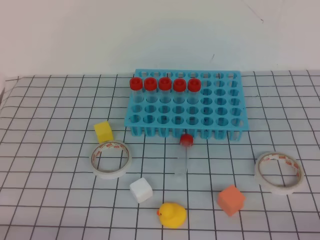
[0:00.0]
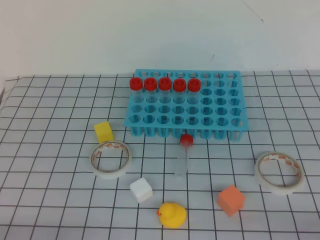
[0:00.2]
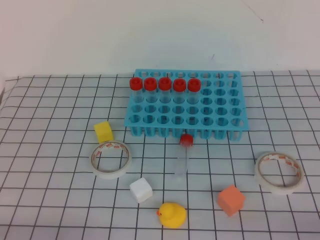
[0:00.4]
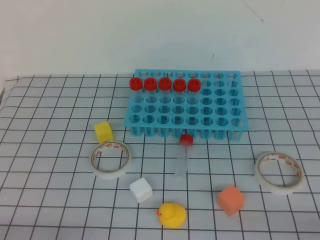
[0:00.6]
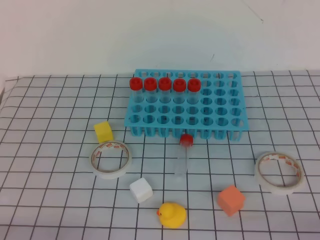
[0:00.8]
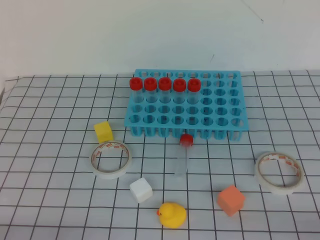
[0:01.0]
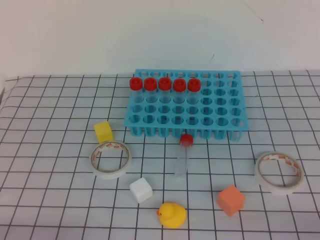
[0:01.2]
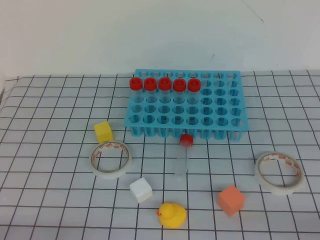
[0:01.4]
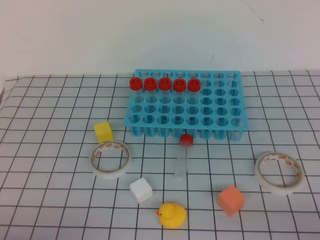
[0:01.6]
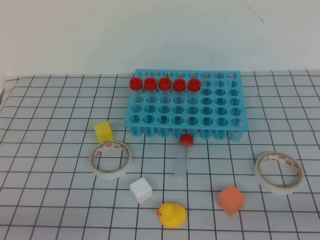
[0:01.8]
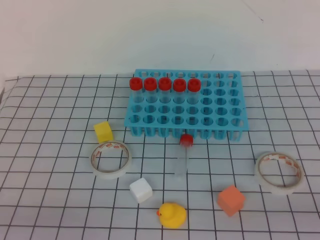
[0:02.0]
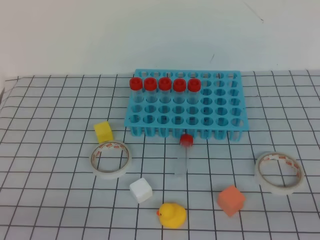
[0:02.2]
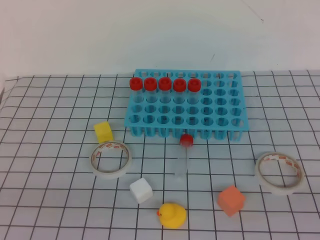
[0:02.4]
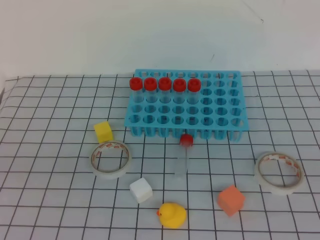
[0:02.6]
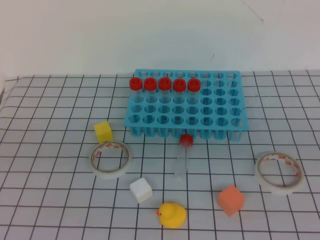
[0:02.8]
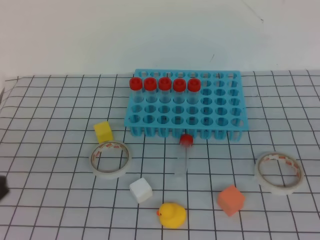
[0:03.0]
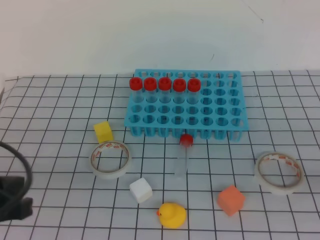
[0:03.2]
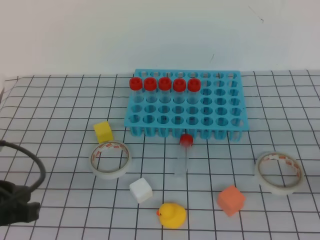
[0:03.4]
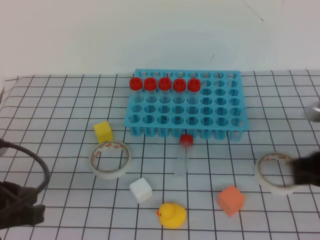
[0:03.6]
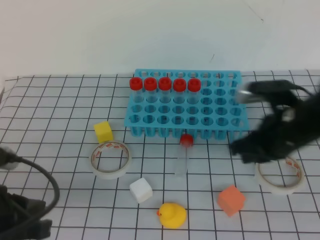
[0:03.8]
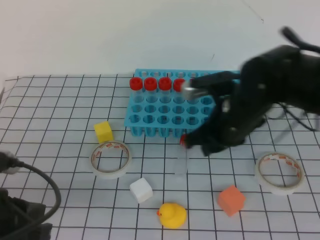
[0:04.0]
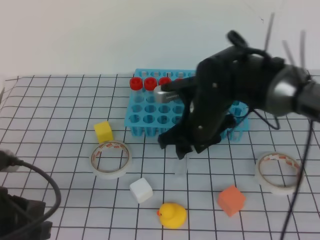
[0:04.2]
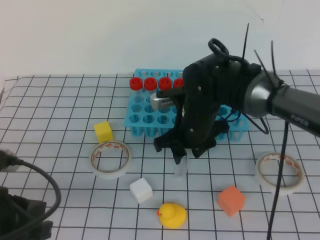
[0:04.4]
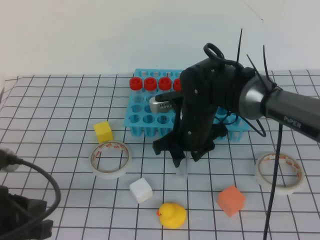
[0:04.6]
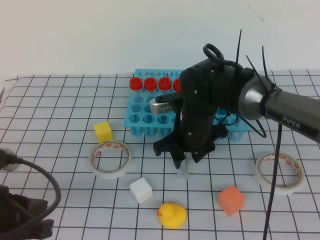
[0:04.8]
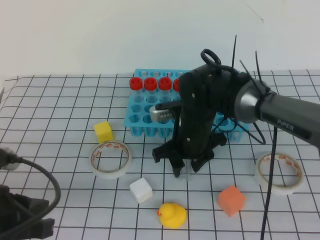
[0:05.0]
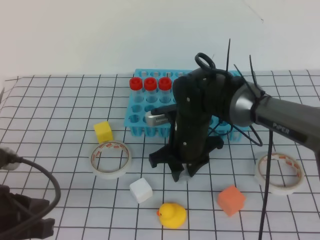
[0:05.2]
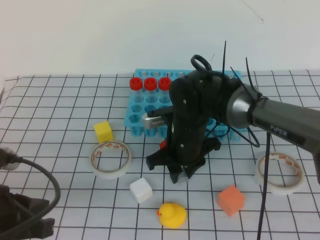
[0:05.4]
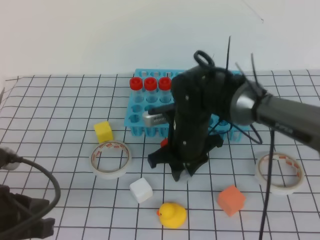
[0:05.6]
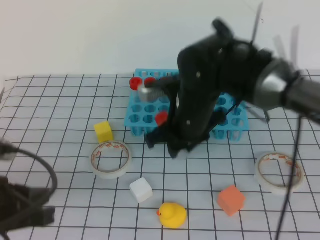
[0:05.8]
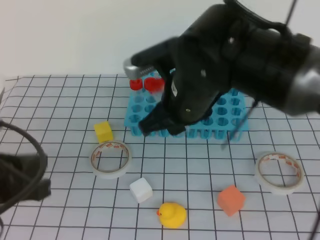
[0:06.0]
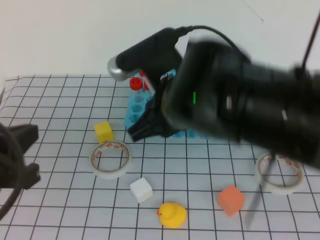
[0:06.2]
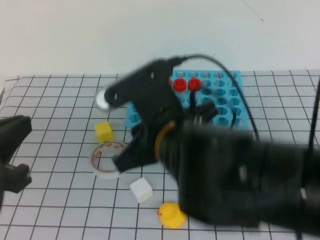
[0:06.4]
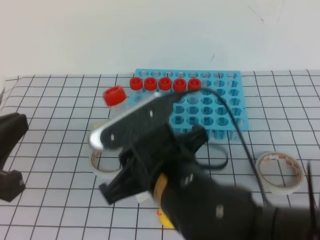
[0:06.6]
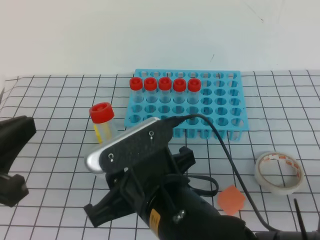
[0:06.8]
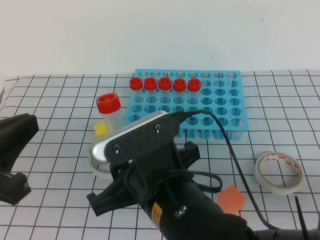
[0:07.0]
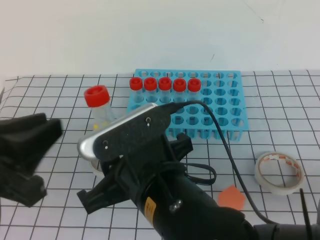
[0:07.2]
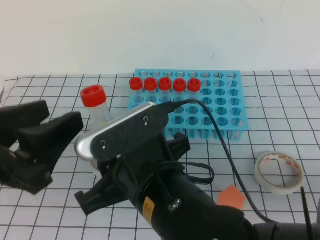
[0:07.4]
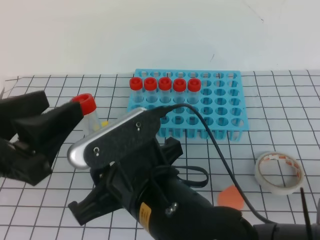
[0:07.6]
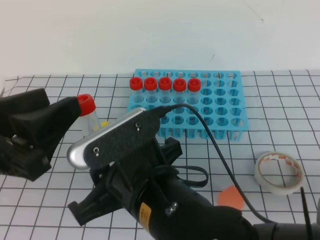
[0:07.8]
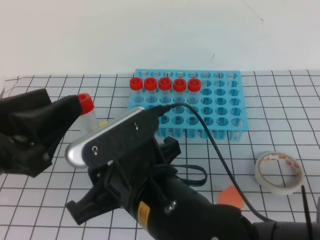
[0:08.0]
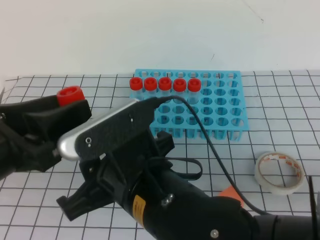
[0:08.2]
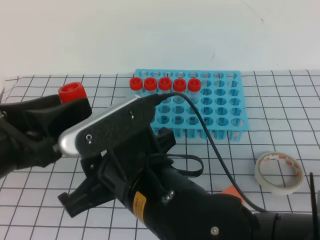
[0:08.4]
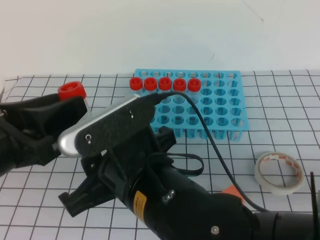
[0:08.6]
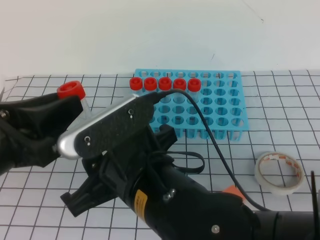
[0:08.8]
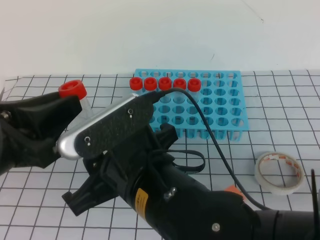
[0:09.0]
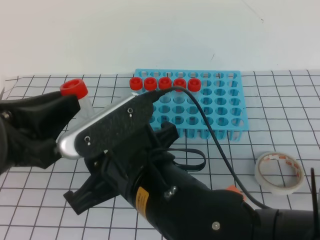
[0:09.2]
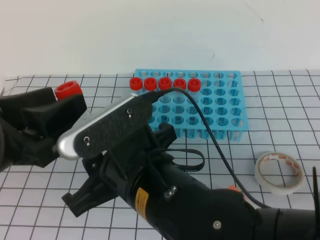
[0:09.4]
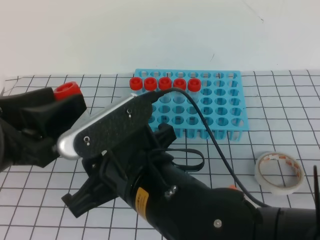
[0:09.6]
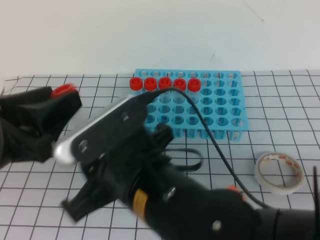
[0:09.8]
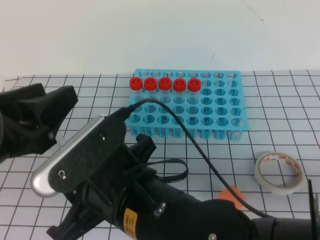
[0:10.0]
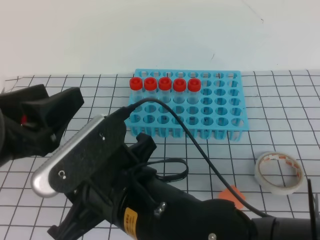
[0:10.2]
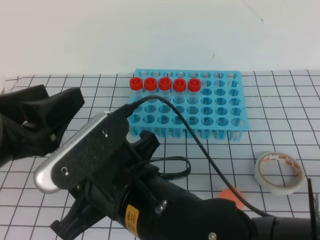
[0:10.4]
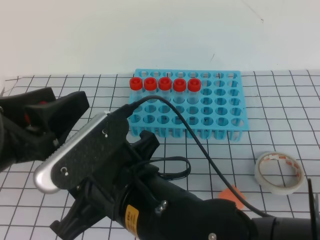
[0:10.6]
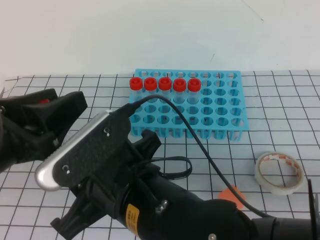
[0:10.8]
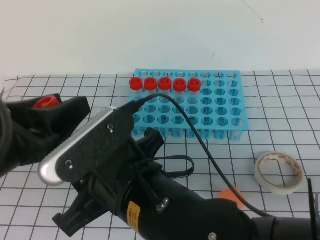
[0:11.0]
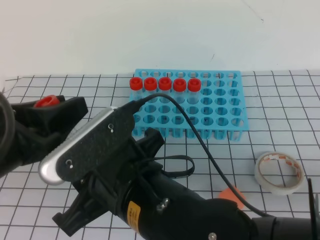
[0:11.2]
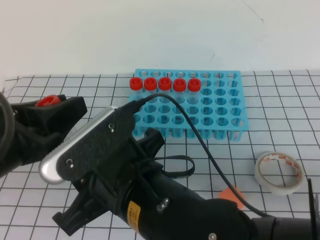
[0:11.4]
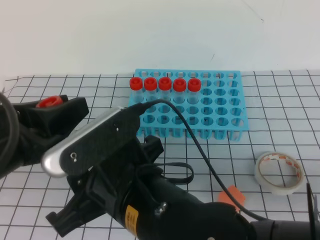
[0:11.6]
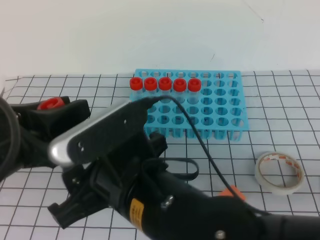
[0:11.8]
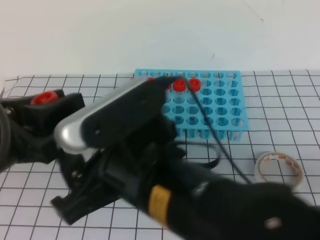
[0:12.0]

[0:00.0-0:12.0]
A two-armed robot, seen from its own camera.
0:03.0 to 0:04.4: The right gripper shifts about 40 cm to the left, forward and downward, and opens. The left gripper travels downward by approximately 5 cm.
0:04.4 to 0:06.0: The right gripper moves upward and backward, approximately 10 cm.
0:06.0 to 0:07.6: The right gripper travels backward by approximately 15 cm. Meanwhile the left gripper travels upward by roughly 5 cm, and opens its fingers.
0:07.6 to 0:09.0: The left gripper closes.
0:09.0 to 0:10.4: The left gripper opens up.
0:10.4 to 0:12.0: The right gripper opens its fingers, while the left gripper closes.

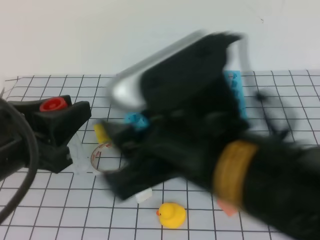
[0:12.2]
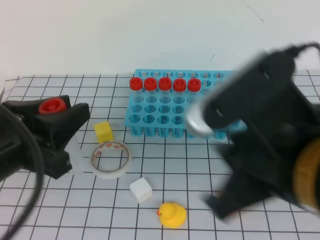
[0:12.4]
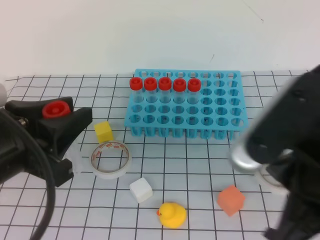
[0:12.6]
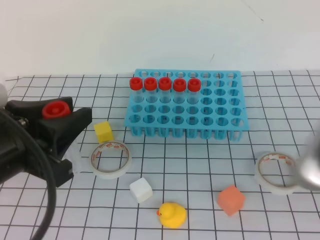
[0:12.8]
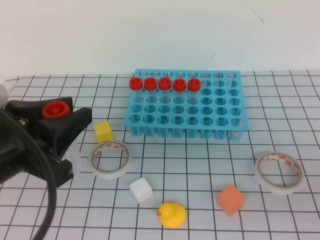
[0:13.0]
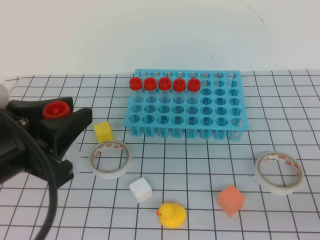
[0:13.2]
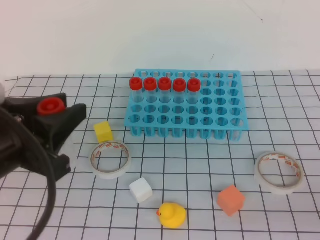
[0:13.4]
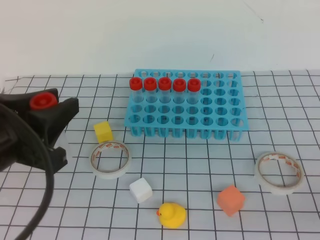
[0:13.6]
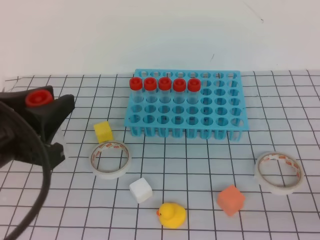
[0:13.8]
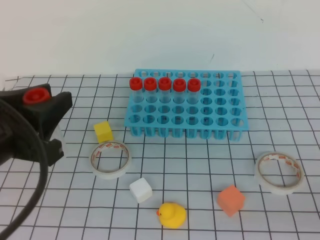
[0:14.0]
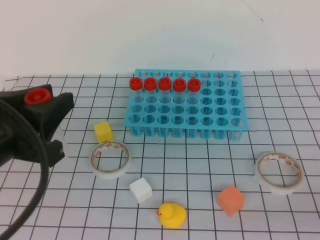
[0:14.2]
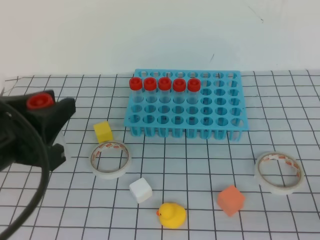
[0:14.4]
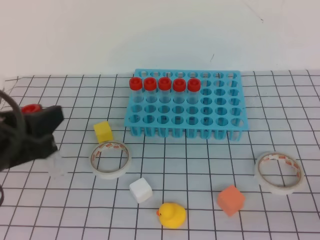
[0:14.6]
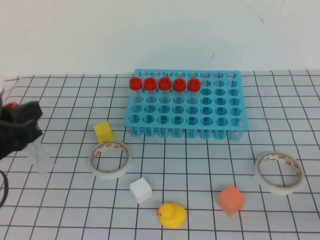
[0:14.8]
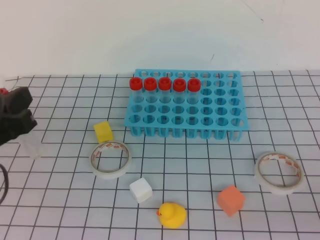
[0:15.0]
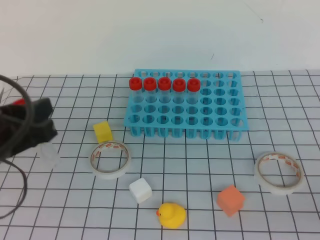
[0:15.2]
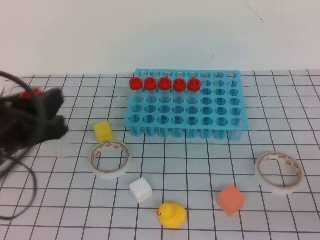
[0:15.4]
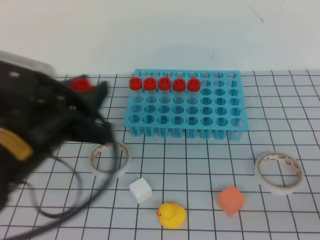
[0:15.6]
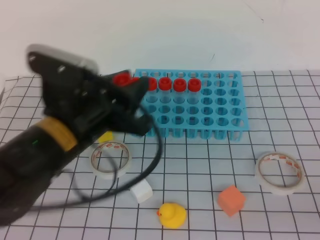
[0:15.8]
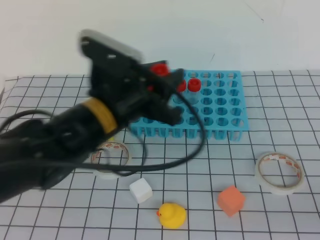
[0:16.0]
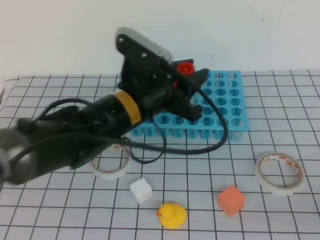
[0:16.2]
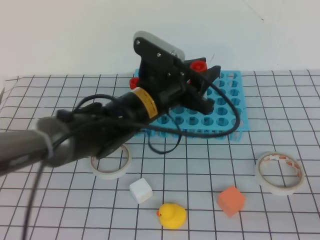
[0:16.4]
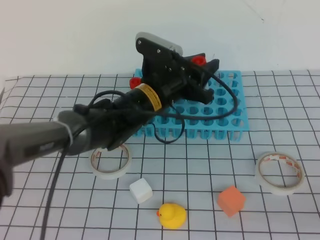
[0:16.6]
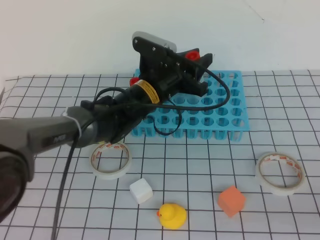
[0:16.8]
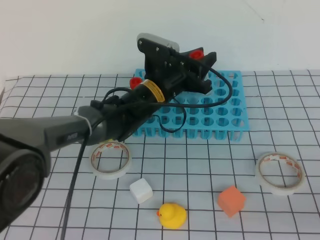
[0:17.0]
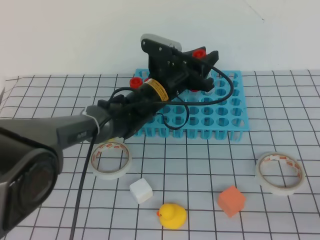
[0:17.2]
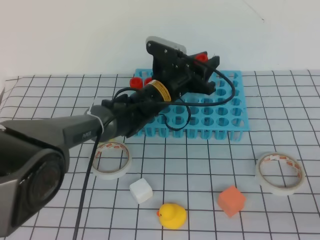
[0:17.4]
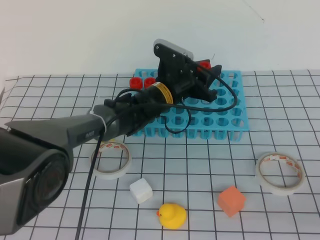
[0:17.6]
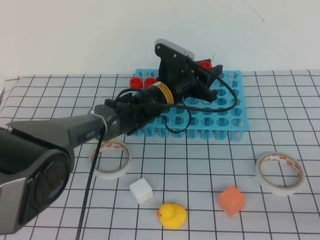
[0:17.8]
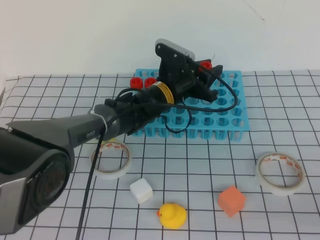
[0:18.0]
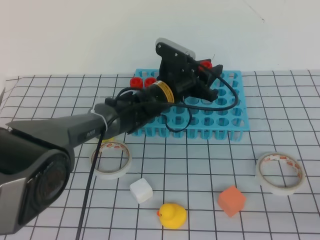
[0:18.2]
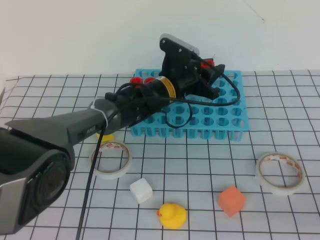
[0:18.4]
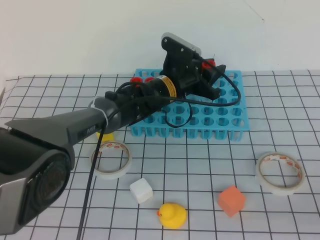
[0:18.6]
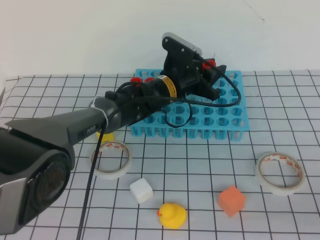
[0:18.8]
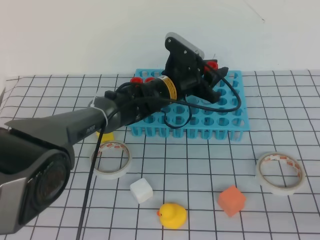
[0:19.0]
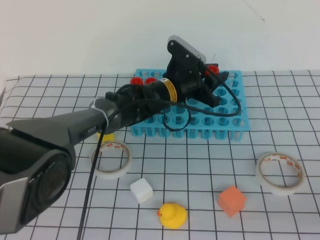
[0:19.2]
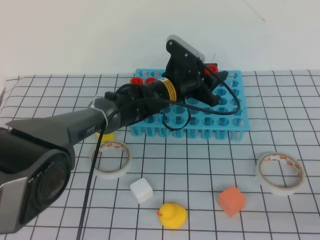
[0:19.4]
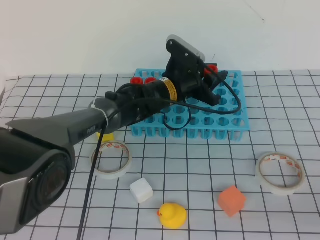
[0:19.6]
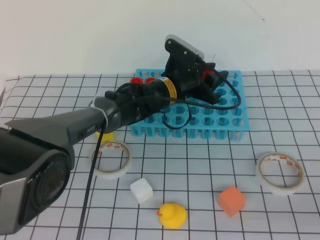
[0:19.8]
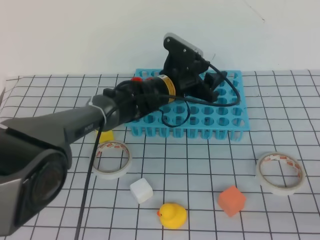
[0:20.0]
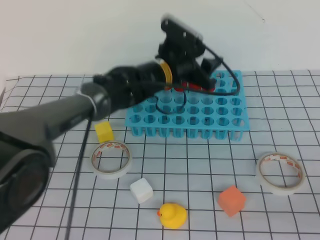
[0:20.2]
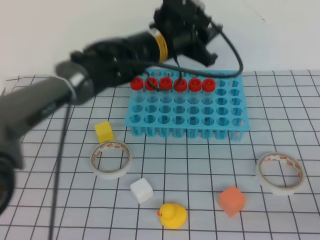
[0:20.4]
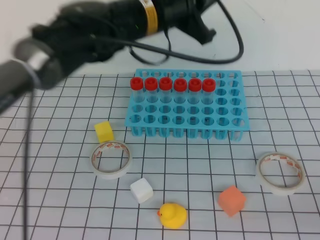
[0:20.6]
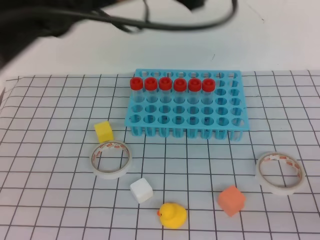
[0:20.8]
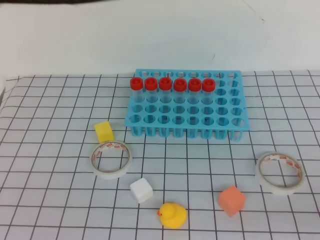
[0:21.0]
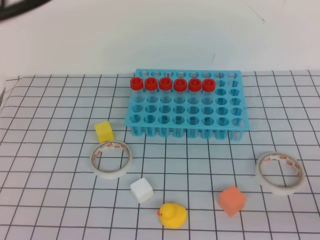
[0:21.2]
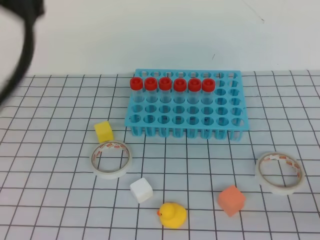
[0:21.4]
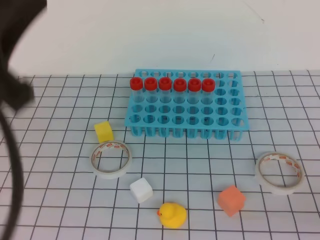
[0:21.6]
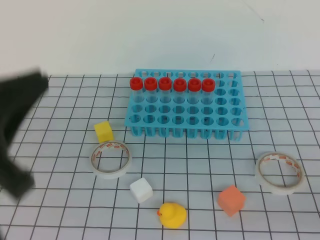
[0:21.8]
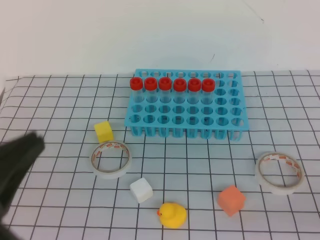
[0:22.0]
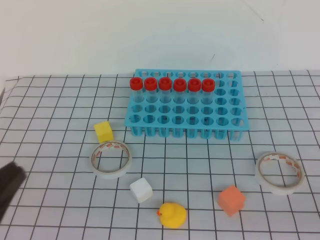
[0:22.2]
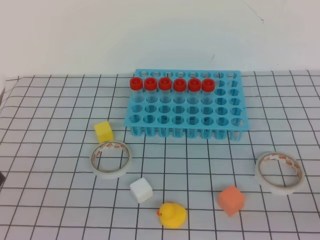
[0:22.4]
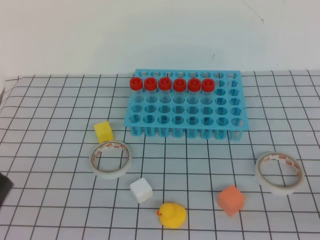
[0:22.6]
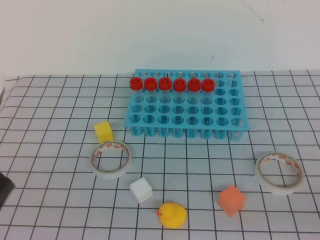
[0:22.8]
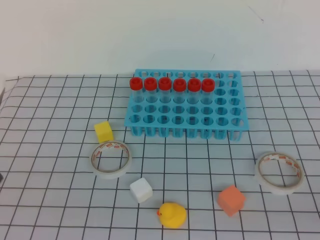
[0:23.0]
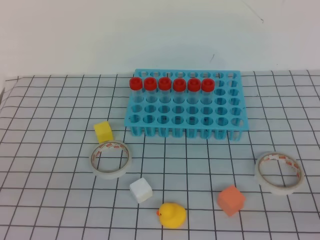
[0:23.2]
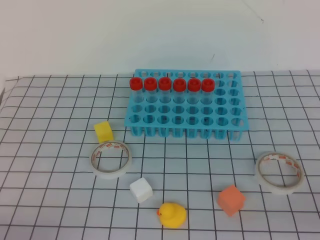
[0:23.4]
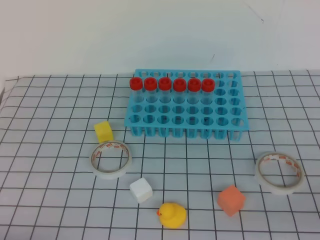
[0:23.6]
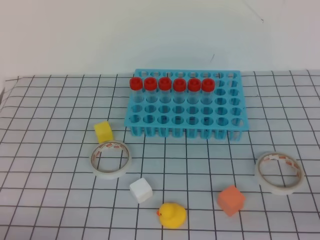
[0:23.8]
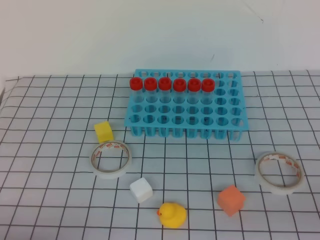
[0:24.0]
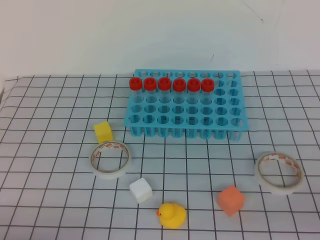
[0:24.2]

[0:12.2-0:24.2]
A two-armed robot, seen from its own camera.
0:12.2 to 0:13.8: The right gripper travels to the right by about 25 cm, and closes.
0:15.2 to 0:16.6: The left gripper travels to the right, forward and downward by approximately 30 cm.
0:16.6 to 0:18.2: The left gripper goes roughly 10 cm forward and downward.
0:18.2 to 0:19.8: There are only small adjustments of the grippers.
0:19.8 to 0:21.2: The left gripper is displaced upward, backward and to the left by some 40 cm, and closes.
0:21.2 to 0:22.6: The left gripper moves backward and downward, some 30 cm.
0:22.6 to 0:24.2: The left gripper goes roughly 15 cm downward.
